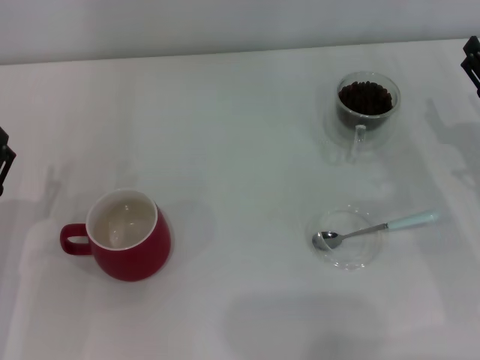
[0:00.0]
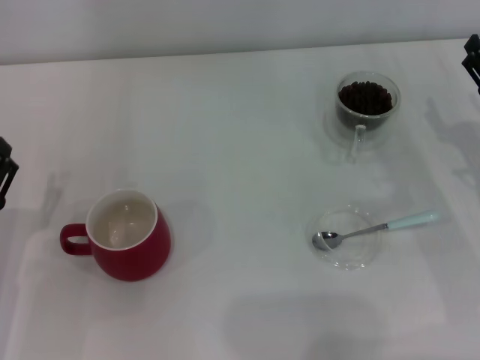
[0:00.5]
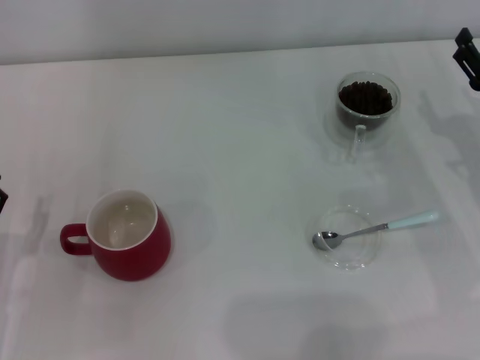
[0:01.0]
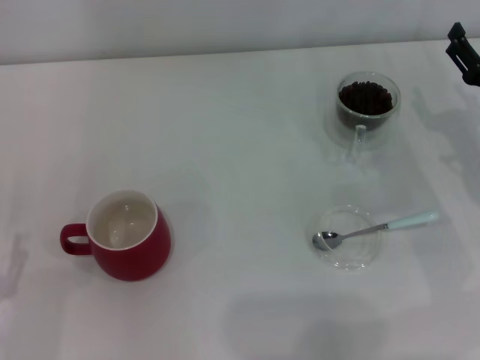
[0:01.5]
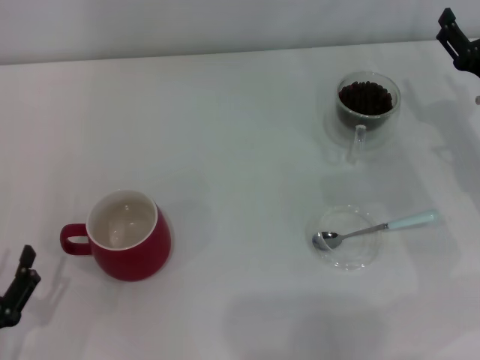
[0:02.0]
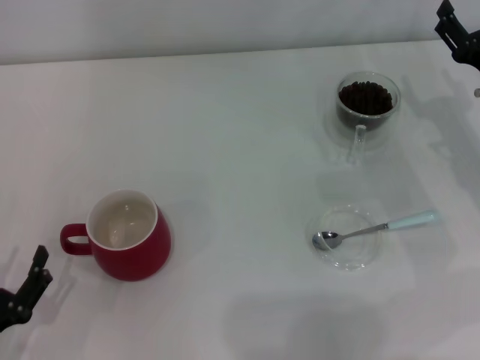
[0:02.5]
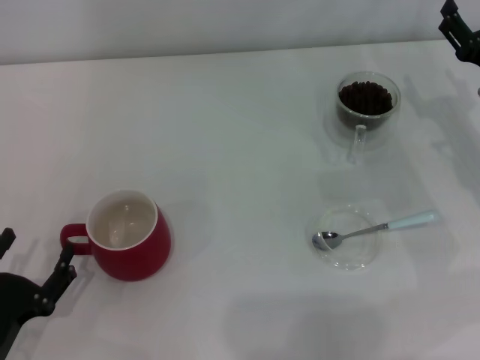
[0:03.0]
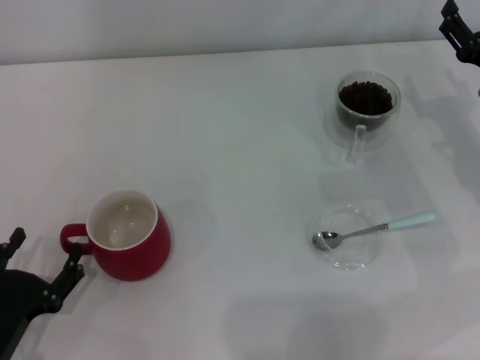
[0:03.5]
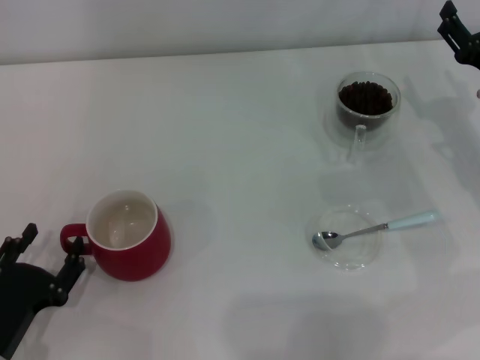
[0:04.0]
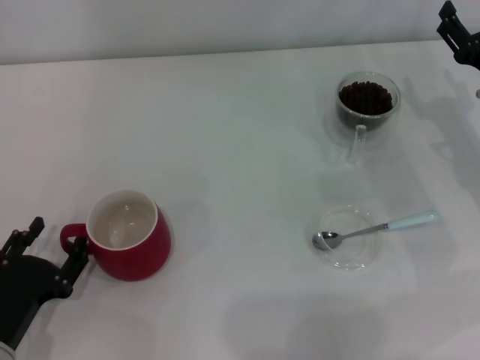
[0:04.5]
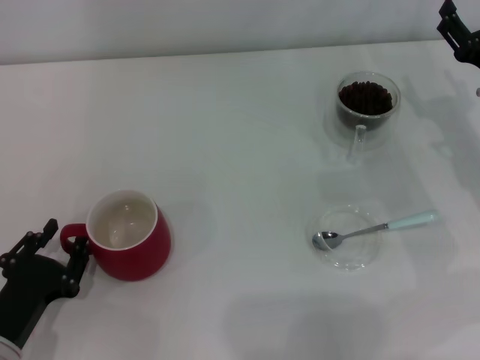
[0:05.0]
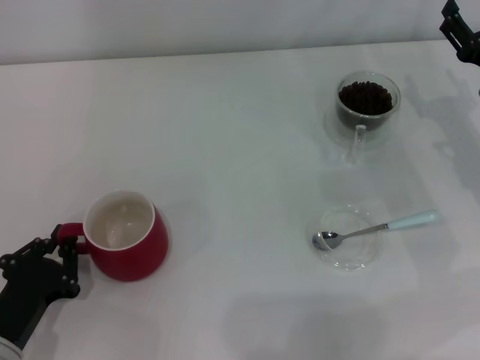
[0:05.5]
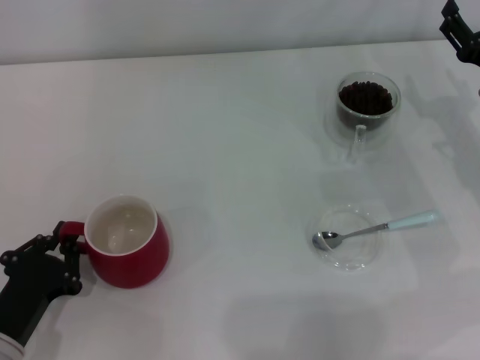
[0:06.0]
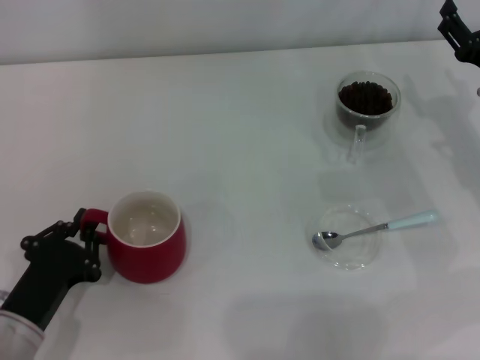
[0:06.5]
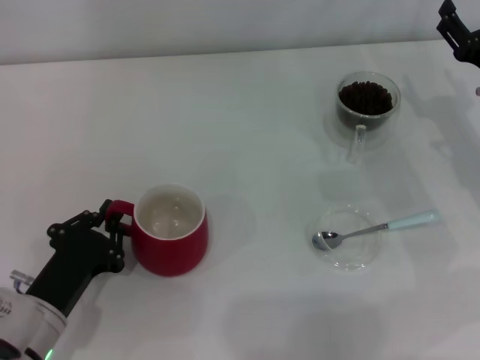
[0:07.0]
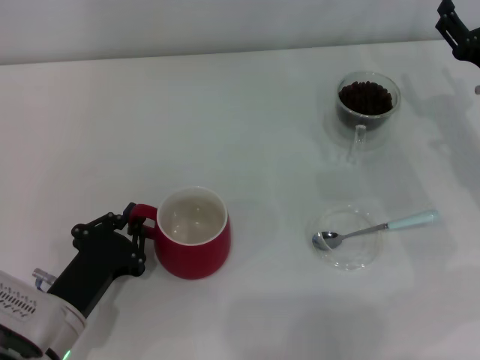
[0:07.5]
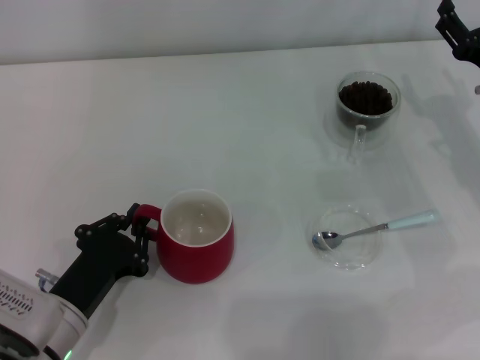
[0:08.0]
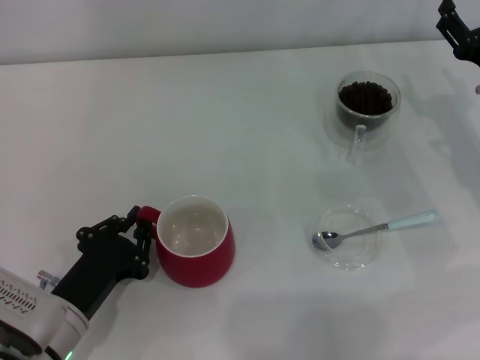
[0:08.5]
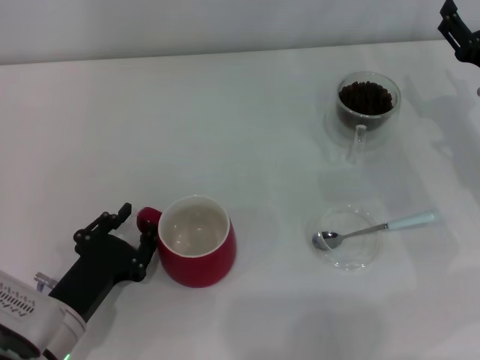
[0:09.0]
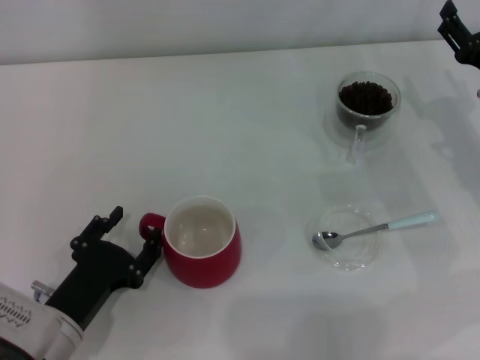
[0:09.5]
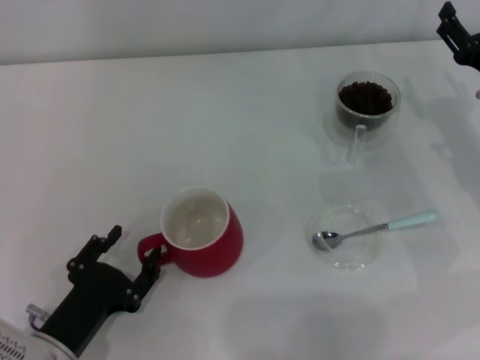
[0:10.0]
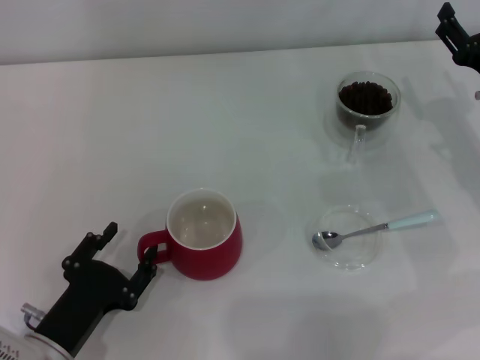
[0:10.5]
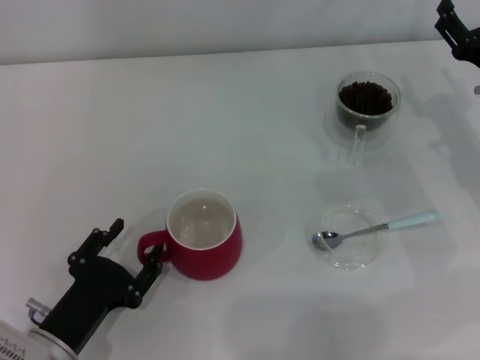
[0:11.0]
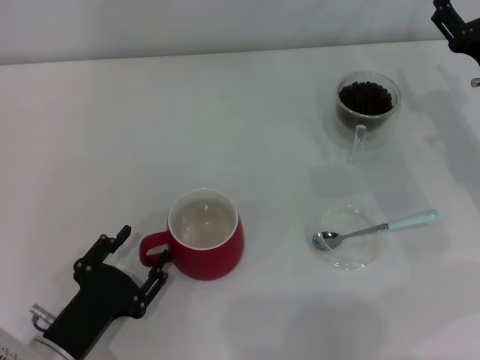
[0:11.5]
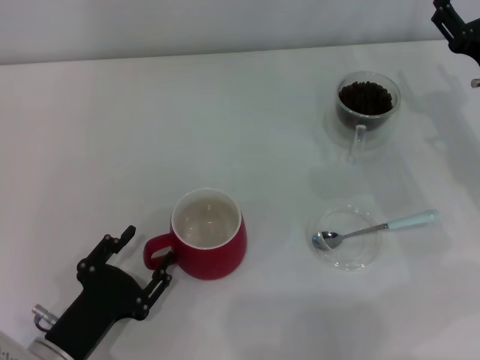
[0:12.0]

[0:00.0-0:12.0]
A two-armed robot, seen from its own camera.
Task of the whole recording: Use a blue spoon to take out the coffee beans from the glass and pour them into the red cup.
0:00.0 to 0:02.0: The left gripper goes some 10 cm backward.
0:02.0 to 0:04.0: The grippers move only a little.
0:04.0 to 0:06.0: The left gripper closes.
0:06.0 to 0:08.0: The left gripper shifts about 5 cm to the right.
0:08.0 to 0:10.0: The left gripper opens.
0:10.0 to 0:12.0: The grippers make only small movements.

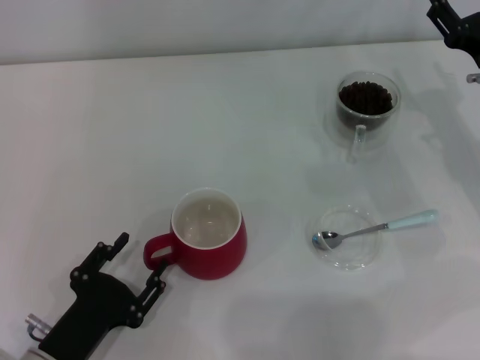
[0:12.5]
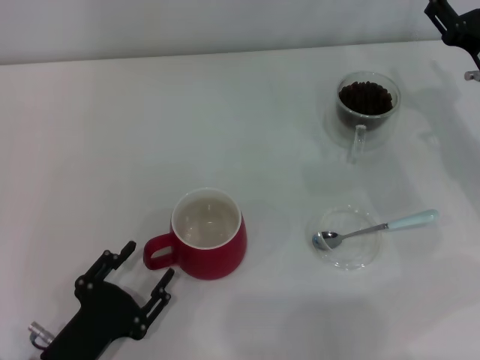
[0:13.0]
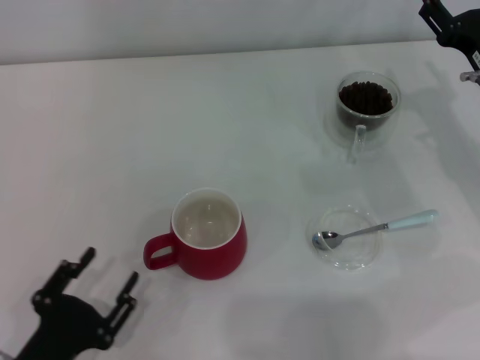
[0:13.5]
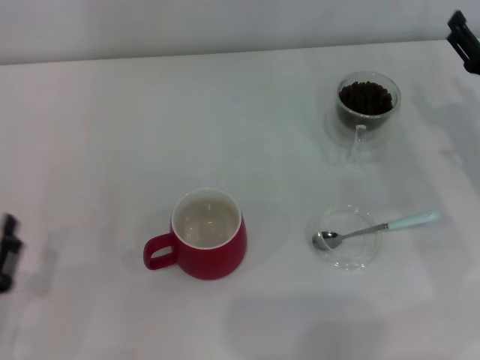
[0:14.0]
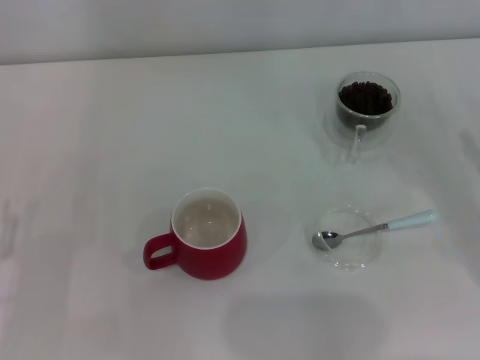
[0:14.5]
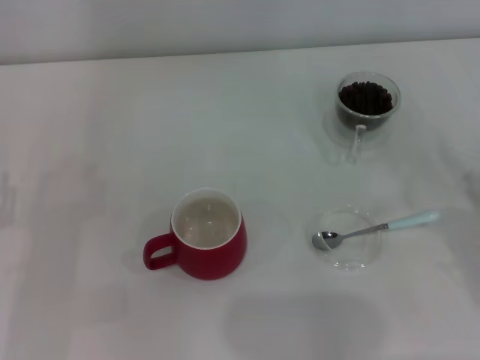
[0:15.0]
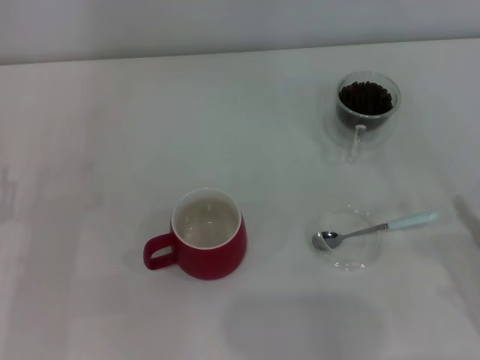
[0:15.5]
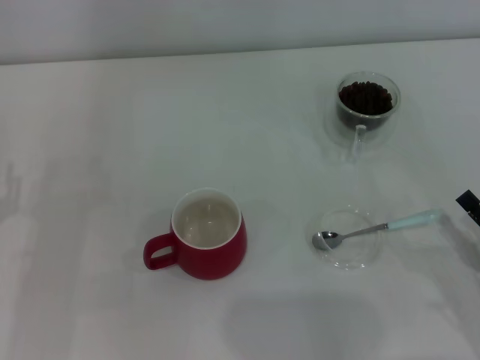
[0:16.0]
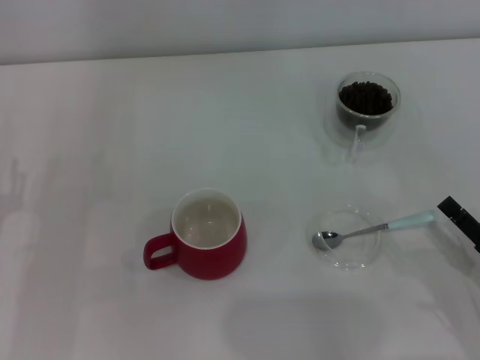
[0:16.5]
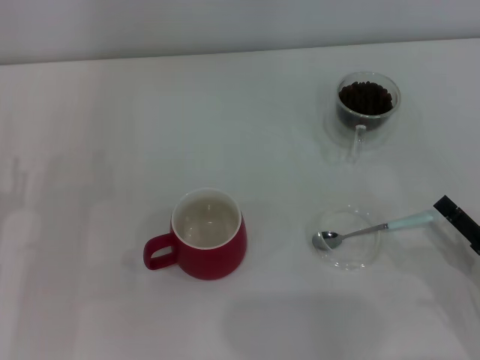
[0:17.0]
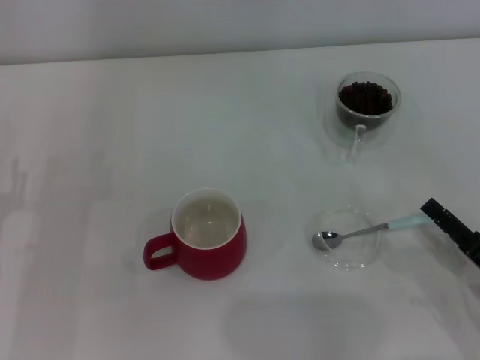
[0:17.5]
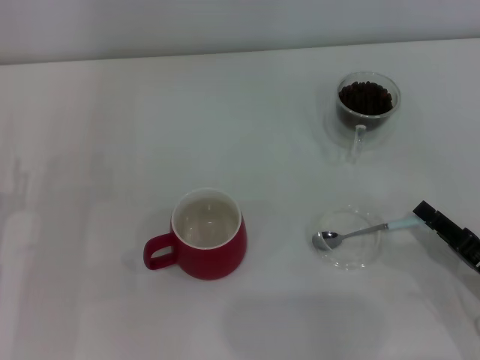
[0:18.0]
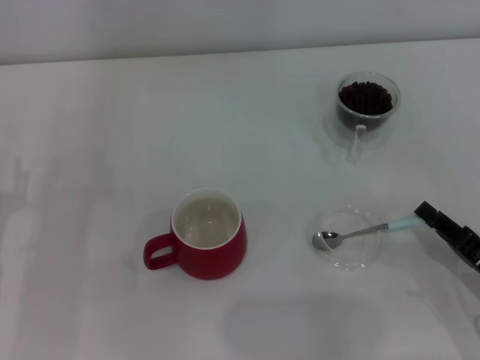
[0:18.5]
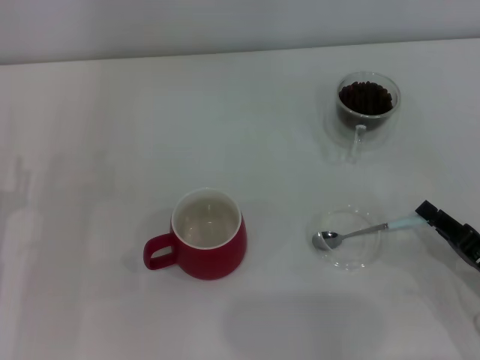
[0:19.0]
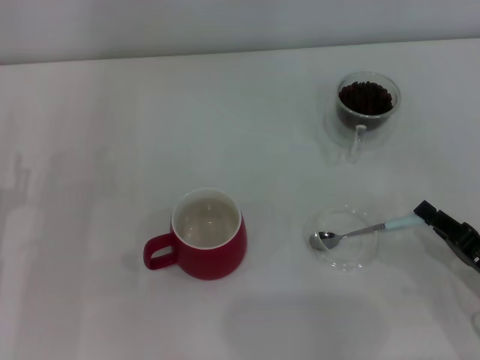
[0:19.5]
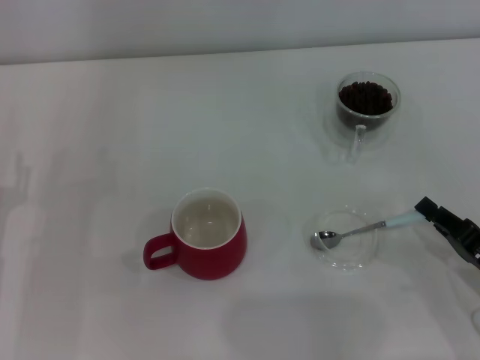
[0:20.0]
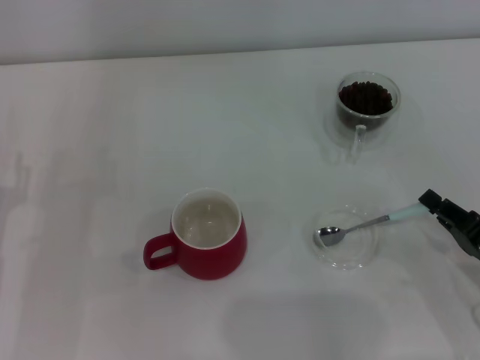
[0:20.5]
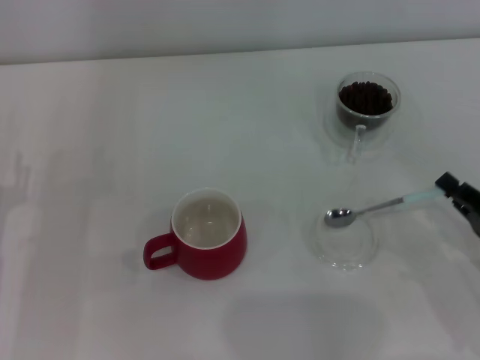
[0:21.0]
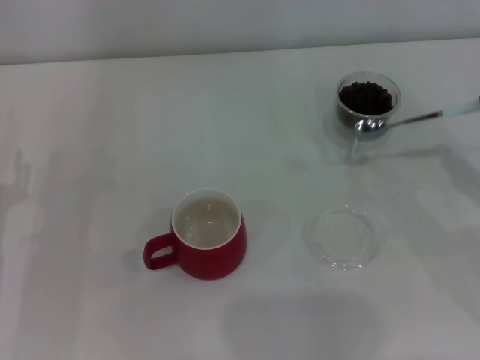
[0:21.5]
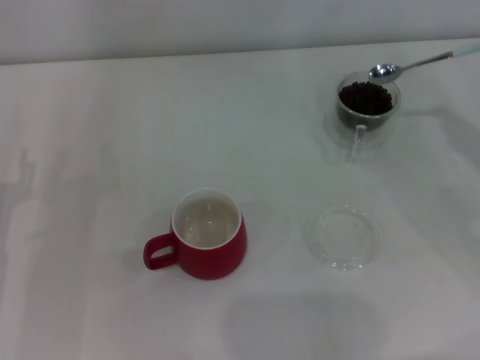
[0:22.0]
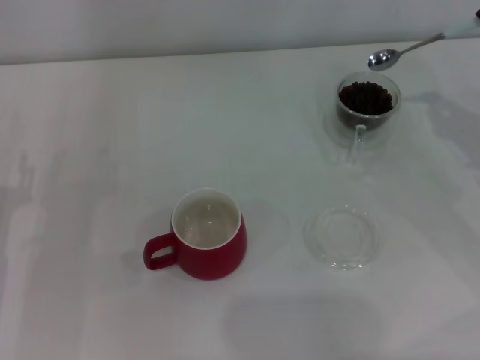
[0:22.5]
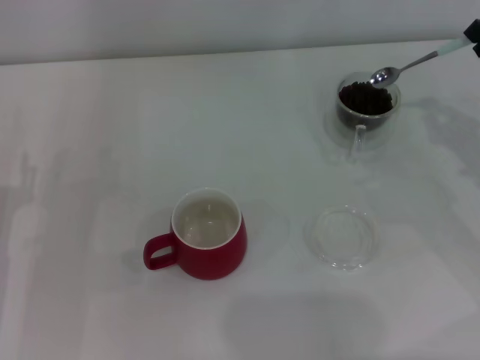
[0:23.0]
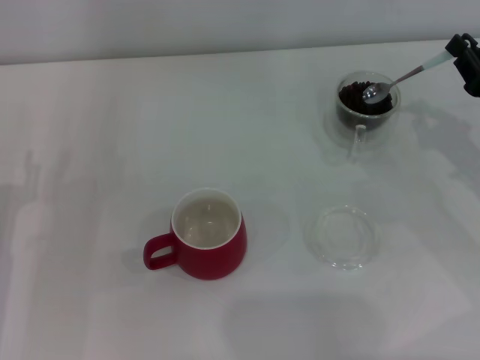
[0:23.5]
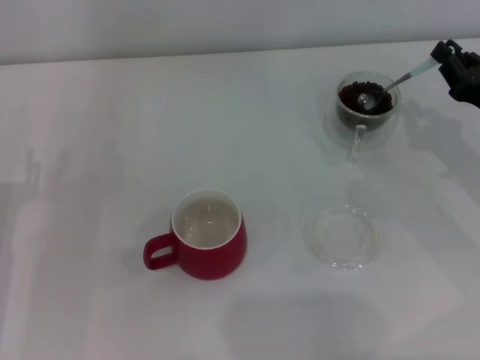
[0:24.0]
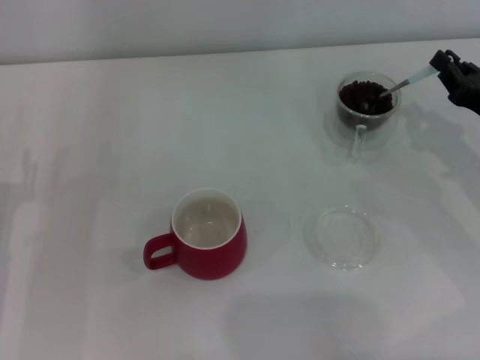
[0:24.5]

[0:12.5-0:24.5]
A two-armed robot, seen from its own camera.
Task of the whole recording: Use a blue spoon to take out the coffee beans from the glass and pour them into the red cup.
Step, 0:13.0 to 0:21.0: Pick up the spoon with the right gripper.
0:12.5 to 0:14.5: The left gripper is displaced to the left by some 10 cm. Meanwhile the right gripper shifts approximately 15 cm backward and to the right.
0:14.5 to 0:16.5: The right gripper is displaced backward and to the left by approximately 10 cm.
0:16.5 to 0:18.5: The right gripper closes up.
0:18.5 to 0:20.5: The right gripper closes.
0:20.5 to 0:22.5: The right gripper heads forward and upward, covering approximately 15 cm.
0:22.5 to 0:24.5: There are only small adjustments of the grippers.

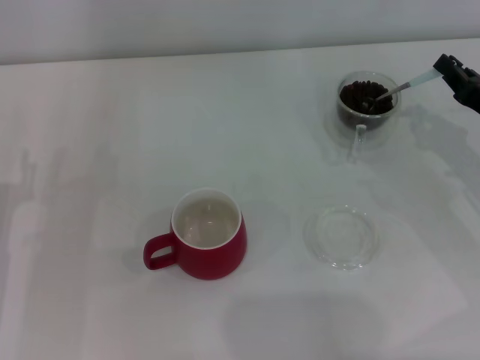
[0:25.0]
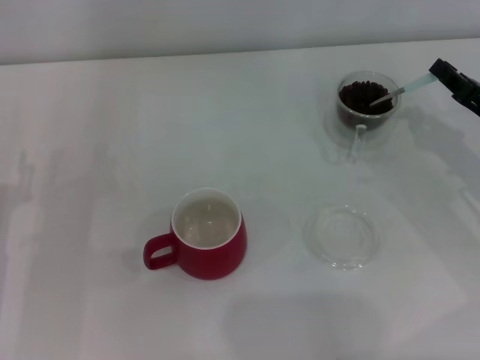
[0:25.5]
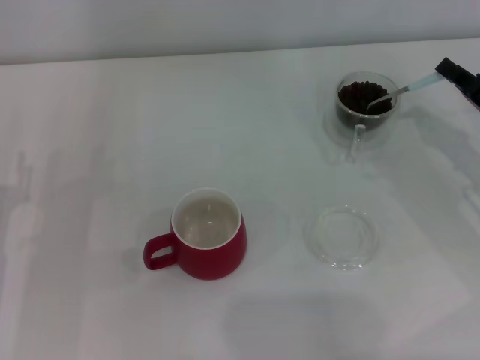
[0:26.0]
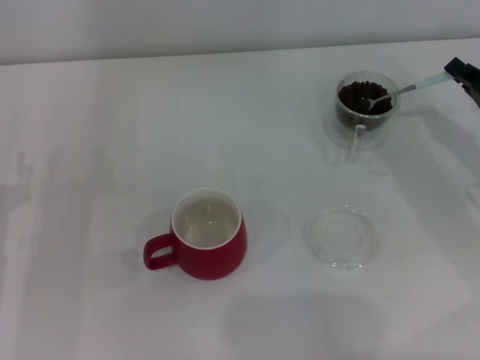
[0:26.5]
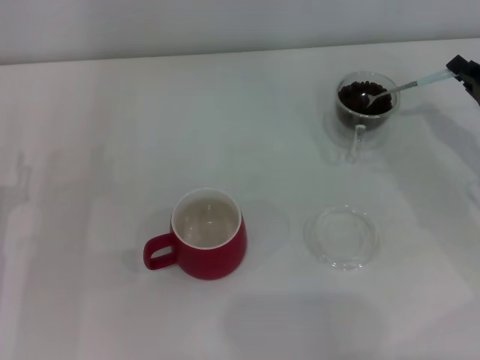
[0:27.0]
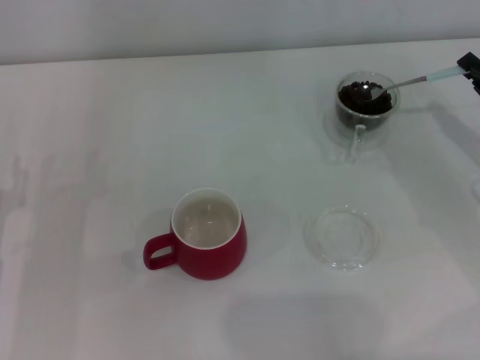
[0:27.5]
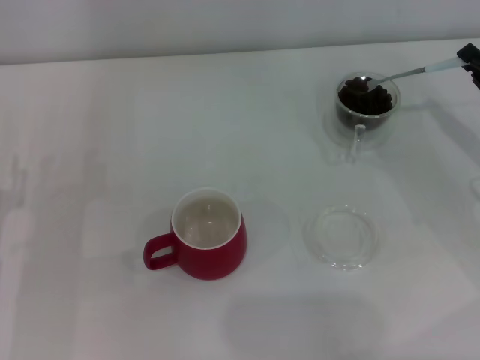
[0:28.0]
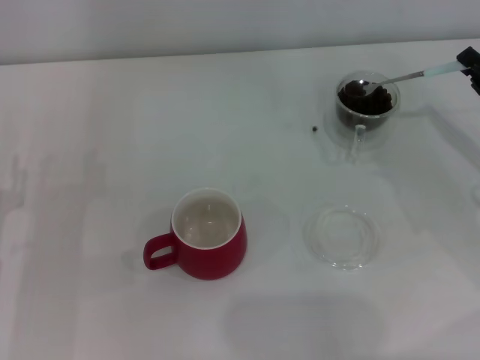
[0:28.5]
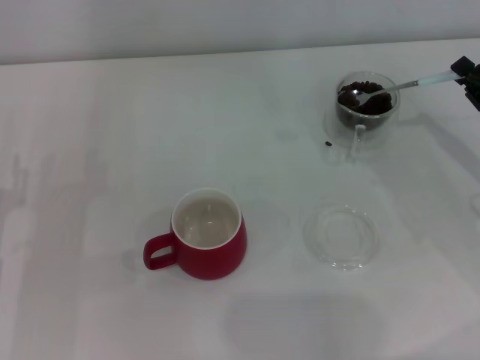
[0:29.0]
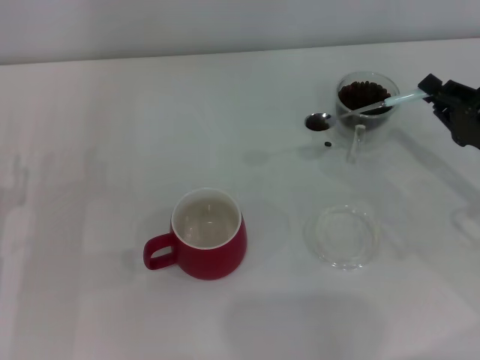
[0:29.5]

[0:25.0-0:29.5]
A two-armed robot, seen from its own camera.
Task of the whole recording: Use a blue spoon to take out the coffee beans from the glass and pour them into the red cup.
0:27.0 to 0:29.5: The grippers move only a little.
